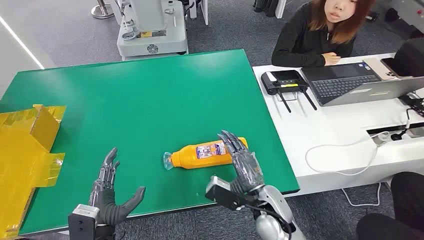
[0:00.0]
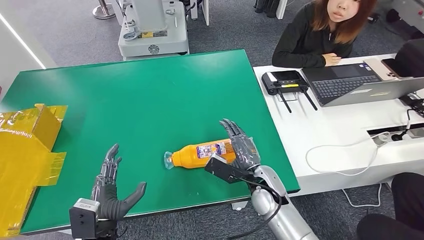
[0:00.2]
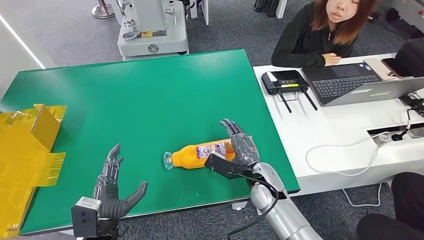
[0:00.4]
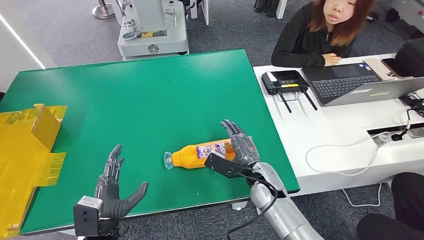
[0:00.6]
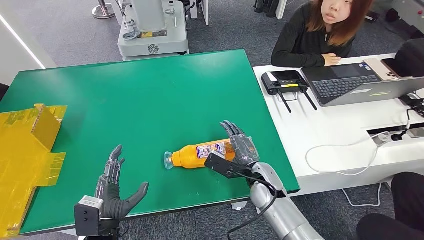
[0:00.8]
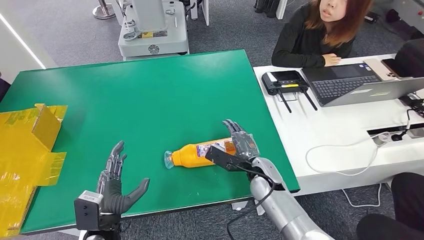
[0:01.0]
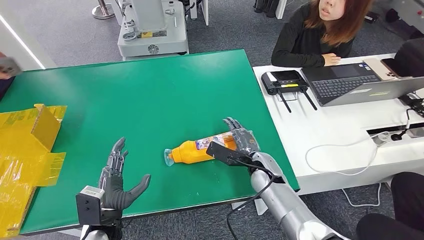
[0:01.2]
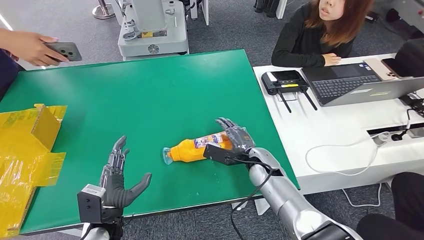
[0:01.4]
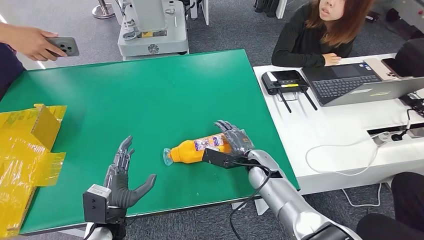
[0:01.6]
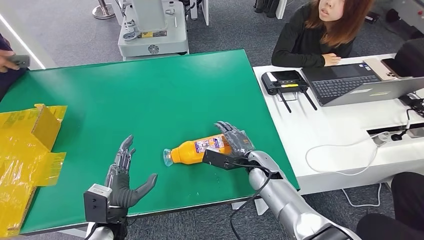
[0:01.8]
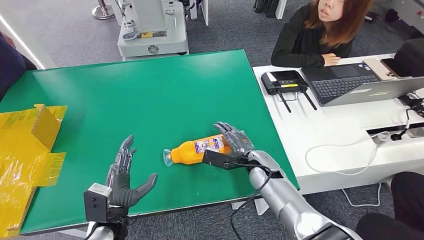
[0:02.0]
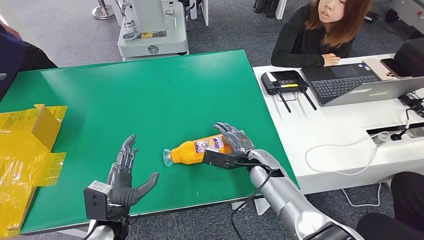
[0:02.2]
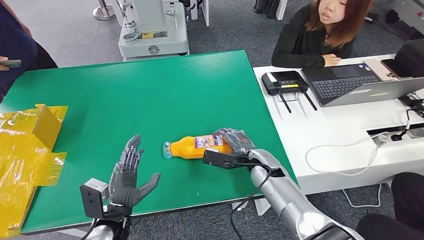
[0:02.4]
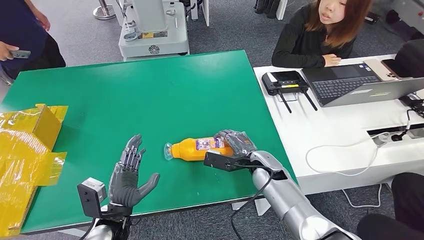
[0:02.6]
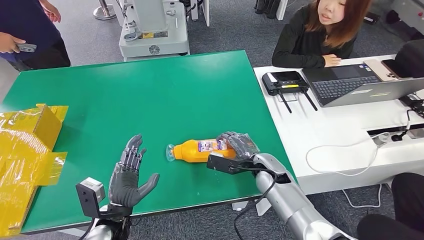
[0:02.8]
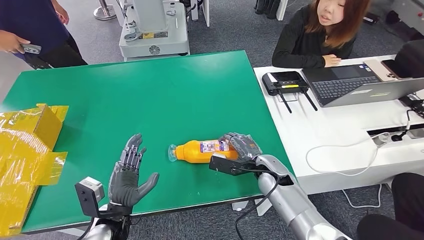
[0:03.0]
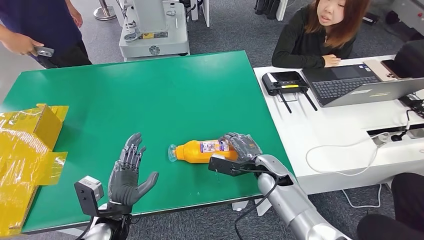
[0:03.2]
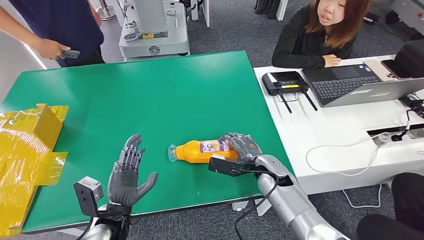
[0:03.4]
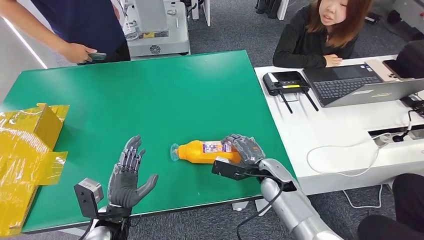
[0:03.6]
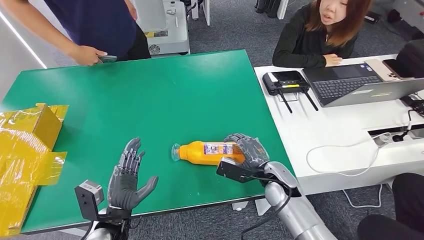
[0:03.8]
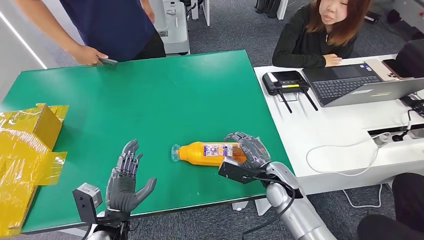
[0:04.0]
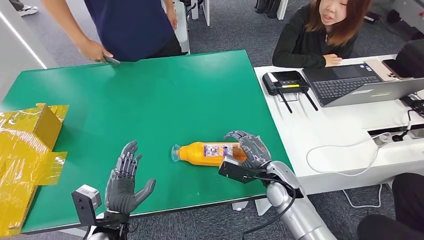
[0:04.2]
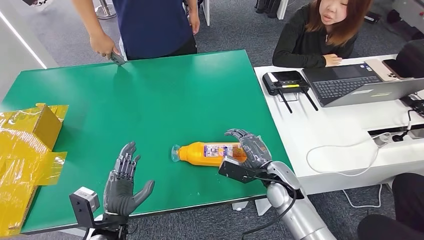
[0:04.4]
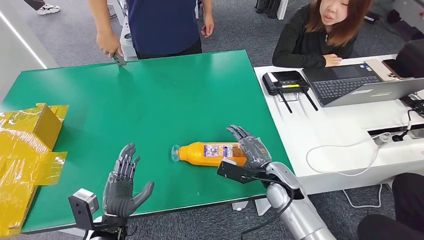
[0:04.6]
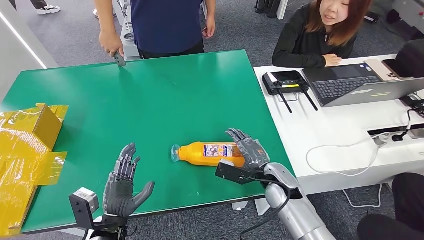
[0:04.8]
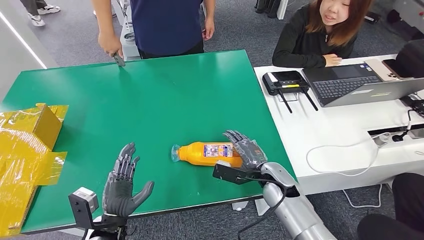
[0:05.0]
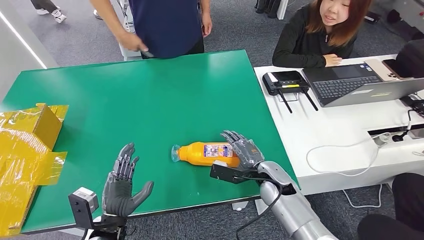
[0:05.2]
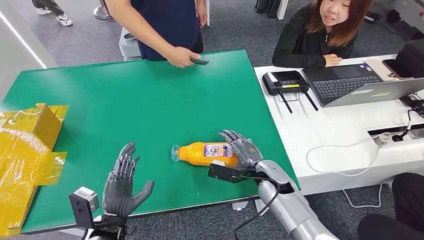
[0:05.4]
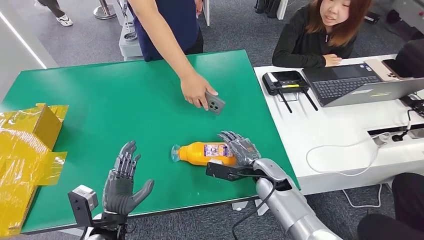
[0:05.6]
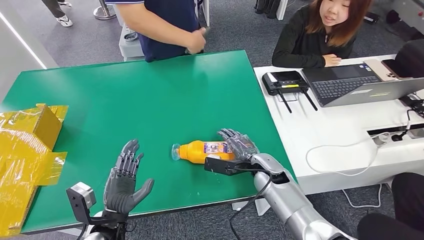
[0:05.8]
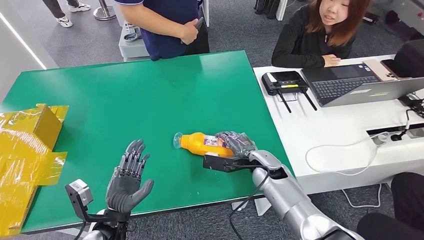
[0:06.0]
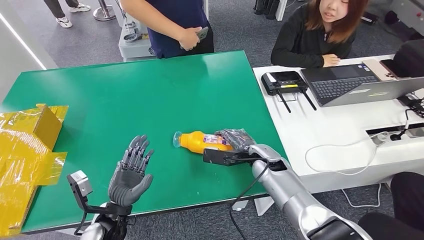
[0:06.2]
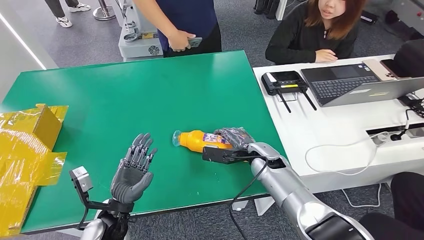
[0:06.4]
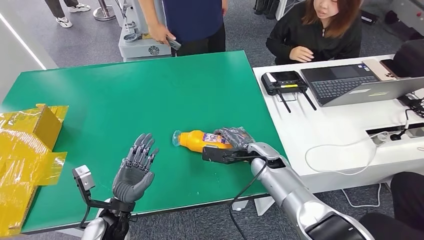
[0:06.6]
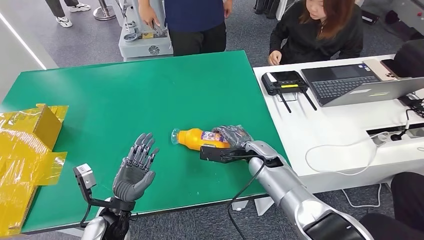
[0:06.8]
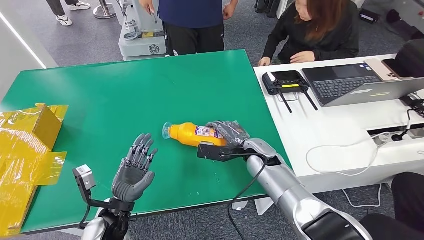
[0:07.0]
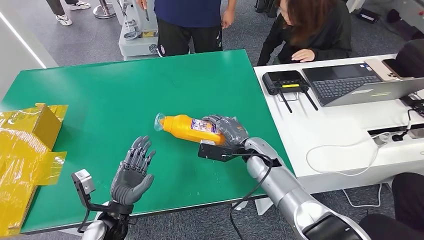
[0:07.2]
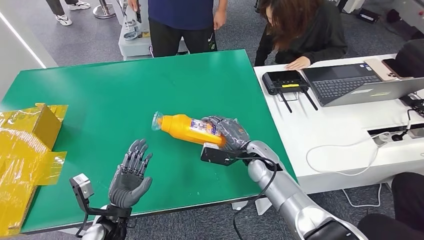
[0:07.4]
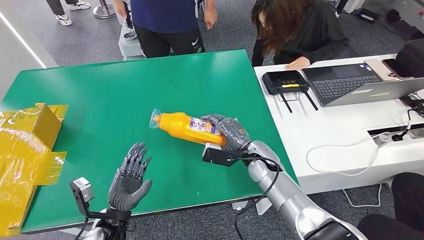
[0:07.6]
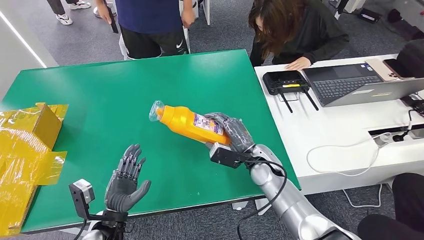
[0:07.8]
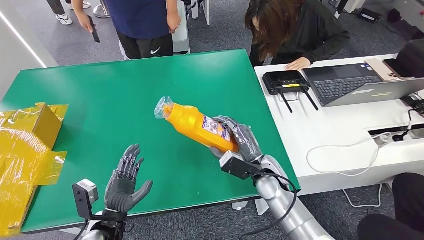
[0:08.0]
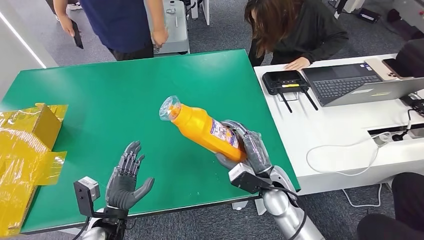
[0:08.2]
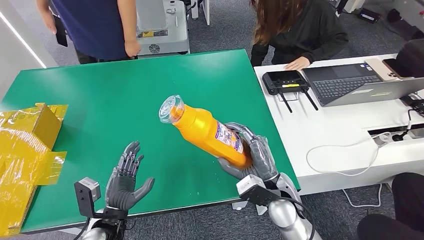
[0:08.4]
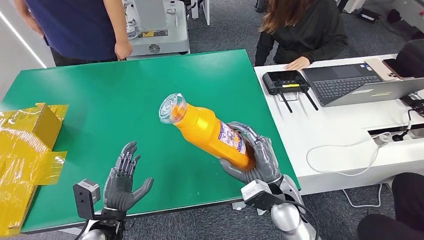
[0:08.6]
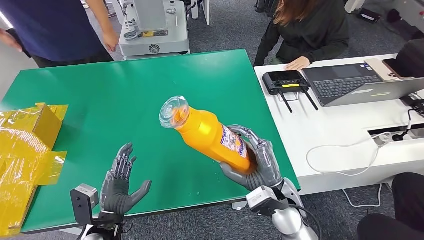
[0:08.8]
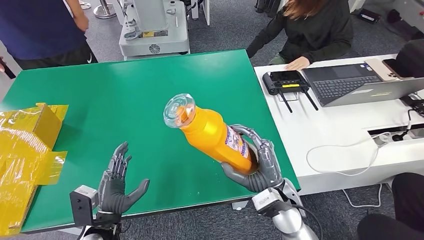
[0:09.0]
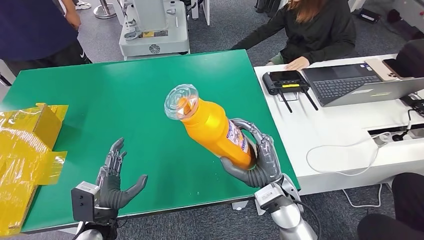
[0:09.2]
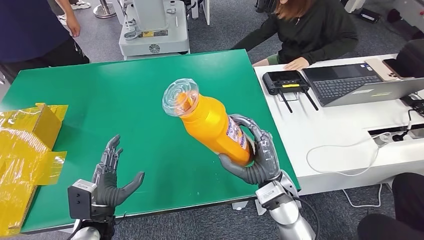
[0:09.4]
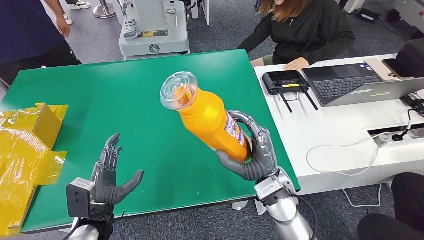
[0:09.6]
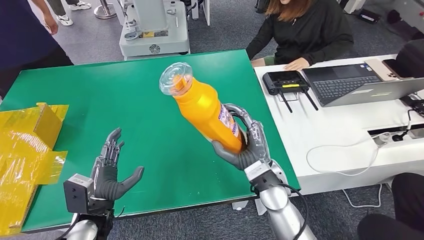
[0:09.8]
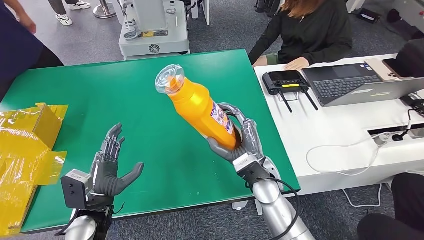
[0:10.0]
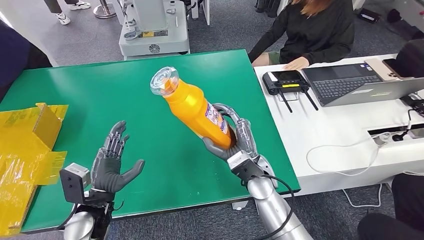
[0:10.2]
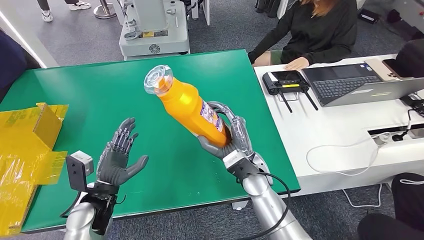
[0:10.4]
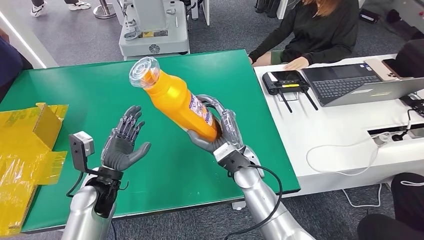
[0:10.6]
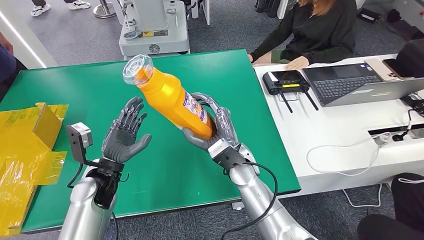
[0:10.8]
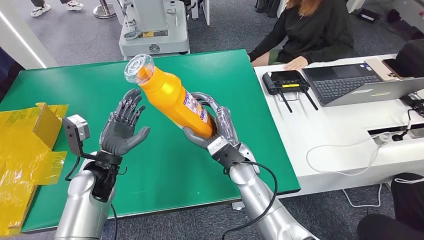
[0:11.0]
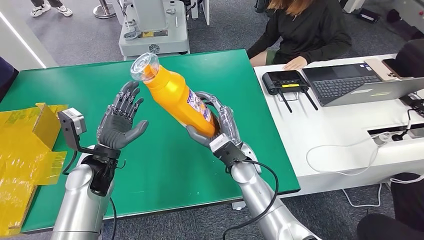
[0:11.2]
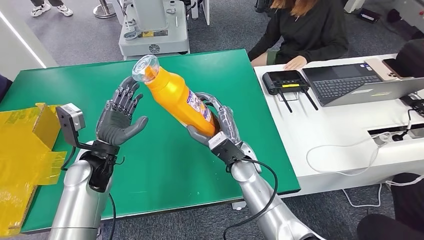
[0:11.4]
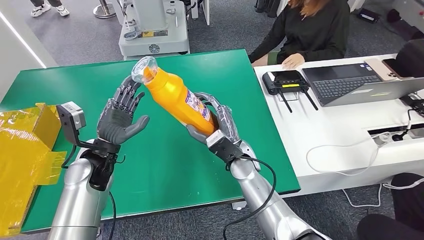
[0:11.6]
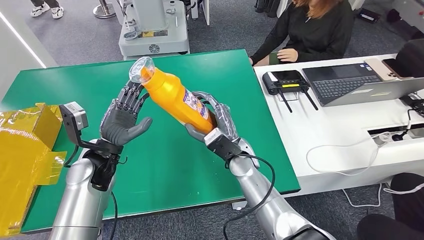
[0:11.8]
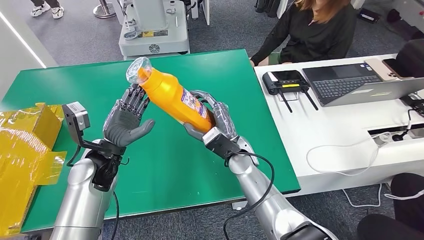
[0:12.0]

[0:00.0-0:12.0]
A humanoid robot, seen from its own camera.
Step, 0:00.0 to 0:08.8: Pick up the bottle from the table.
0:01.6 to 0:03.0: There are only small adjustments of the hands.
0:04.4 to 0:06.0: The right hand moves about 5 cm.
0:10.4 to 0:12.0: The right hand ends up approximately 5 cm from where it was, while the left hand moves upward and forward, about 10 cm.

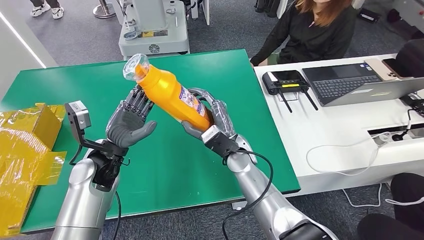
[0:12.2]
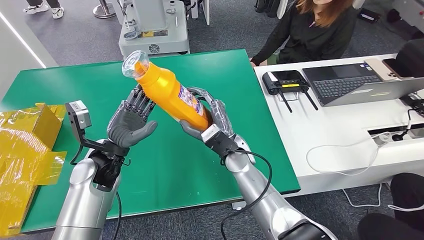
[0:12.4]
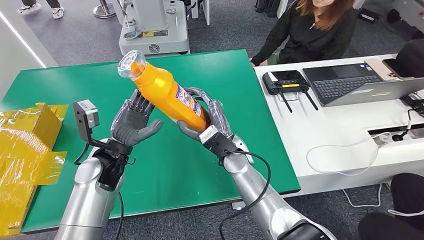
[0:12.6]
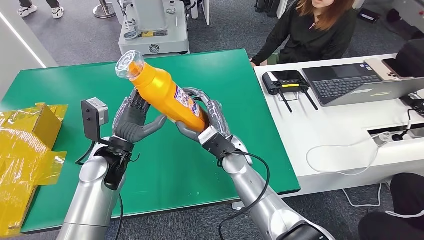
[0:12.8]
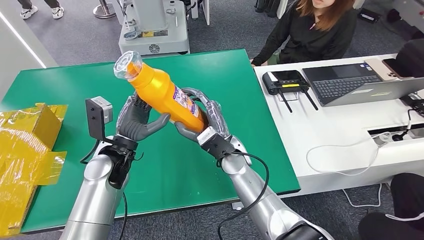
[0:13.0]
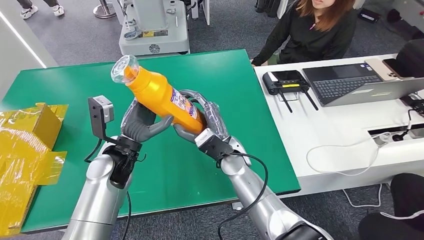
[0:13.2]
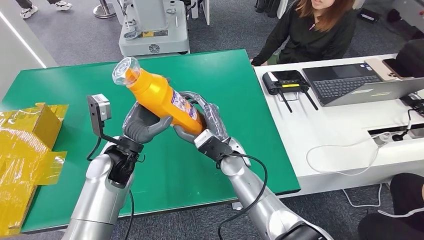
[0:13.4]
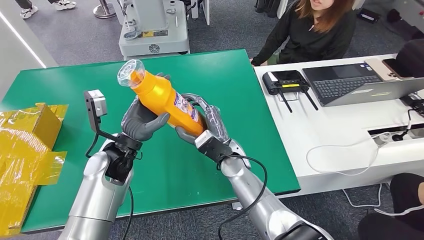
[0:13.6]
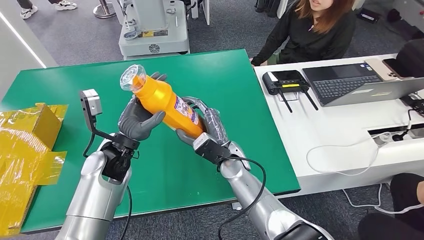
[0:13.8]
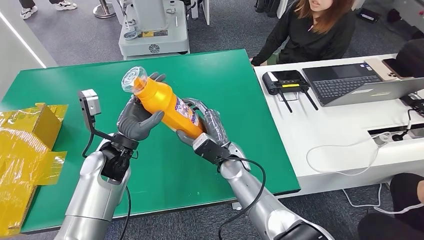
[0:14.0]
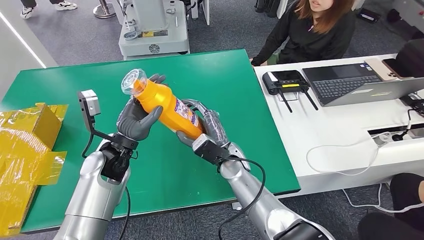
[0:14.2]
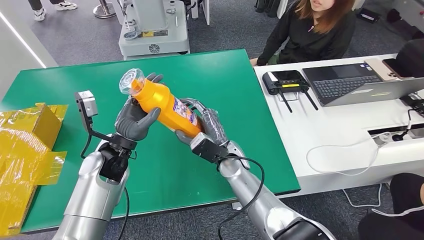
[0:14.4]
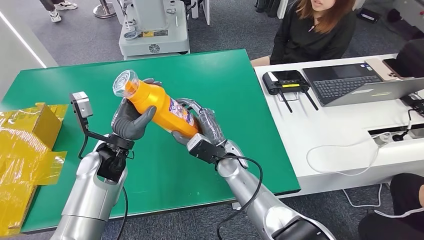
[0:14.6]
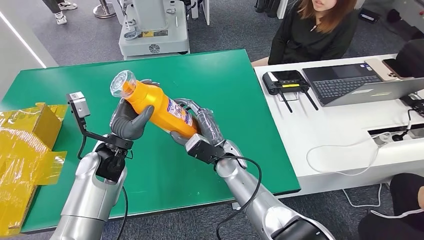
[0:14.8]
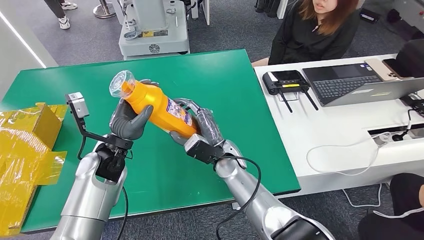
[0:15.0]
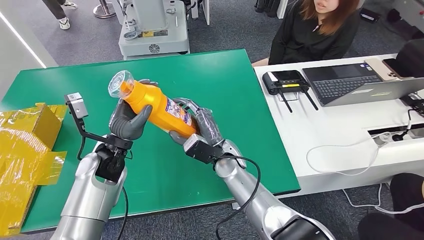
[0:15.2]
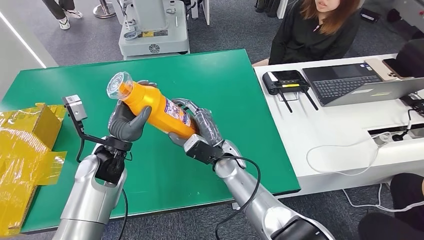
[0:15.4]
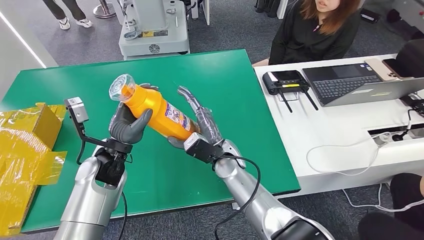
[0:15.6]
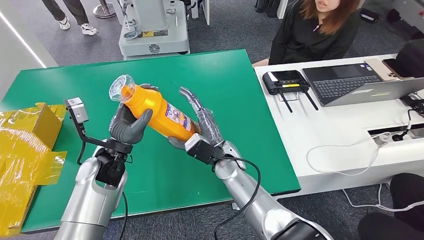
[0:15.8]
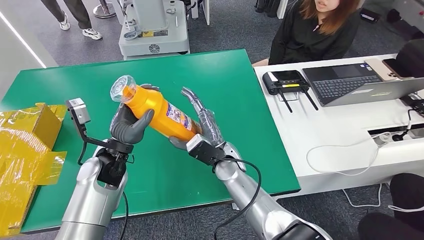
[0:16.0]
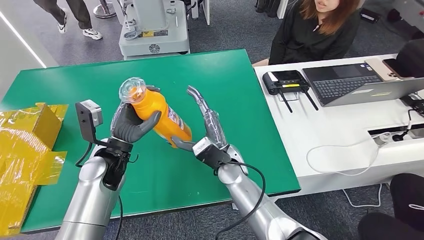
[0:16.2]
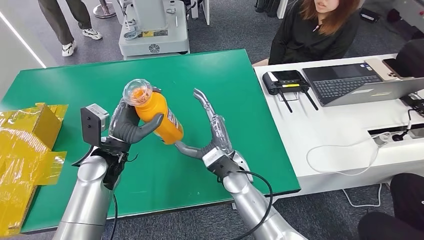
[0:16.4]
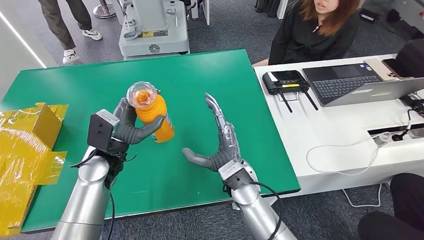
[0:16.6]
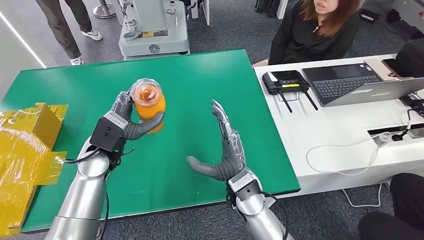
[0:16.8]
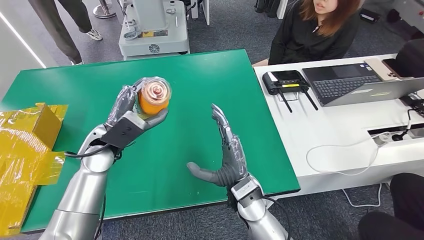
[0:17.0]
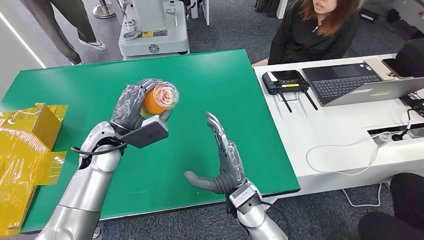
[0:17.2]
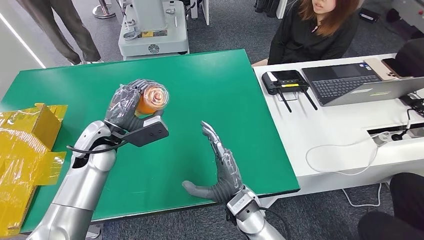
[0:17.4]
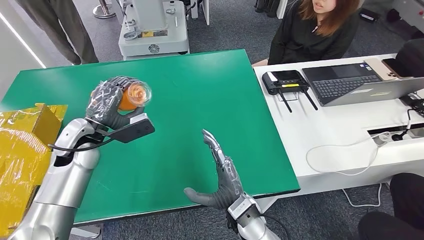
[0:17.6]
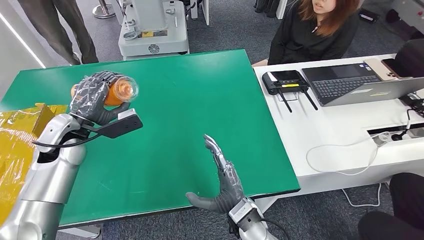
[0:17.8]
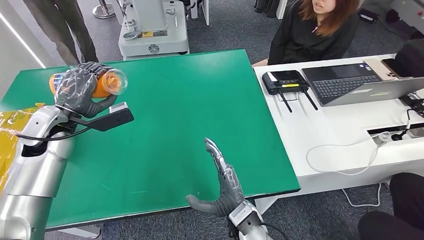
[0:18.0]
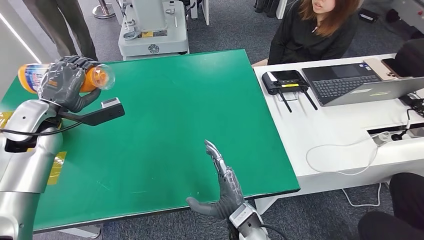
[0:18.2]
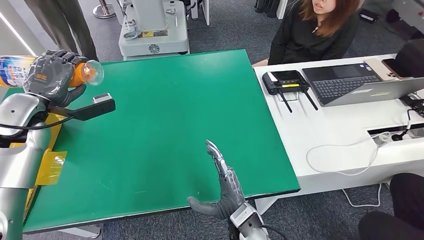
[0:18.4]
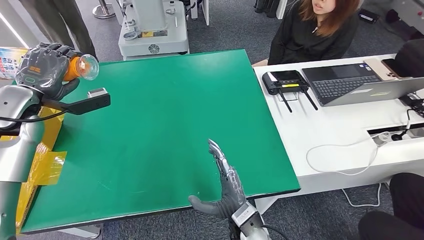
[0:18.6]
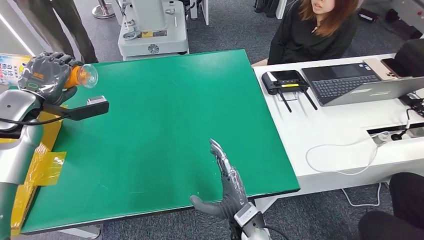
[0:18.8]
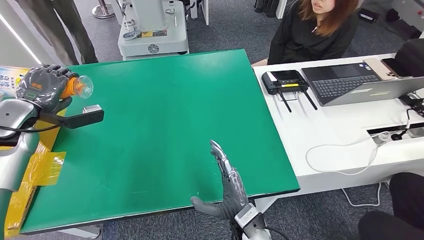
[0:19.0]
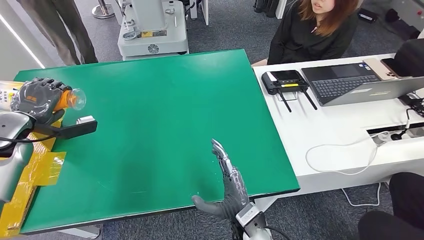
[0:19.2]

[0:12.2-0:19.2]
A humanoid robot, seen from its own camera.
0:12.2 to 0:15.0: The hands stay close to where they were, moving slightly.
0:17.8 to 0:19.2: The left hand moves to the left, approximately 15 cm.
